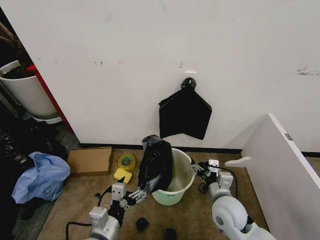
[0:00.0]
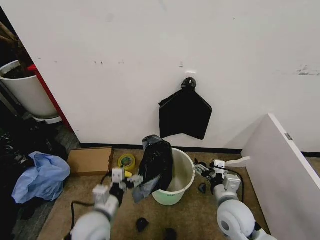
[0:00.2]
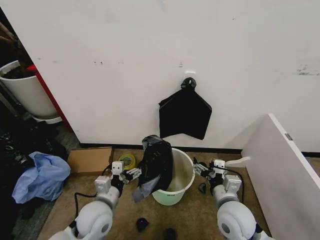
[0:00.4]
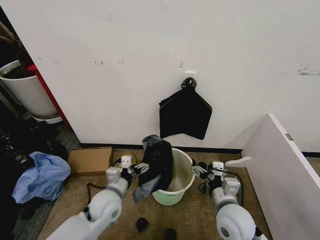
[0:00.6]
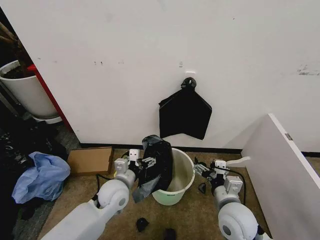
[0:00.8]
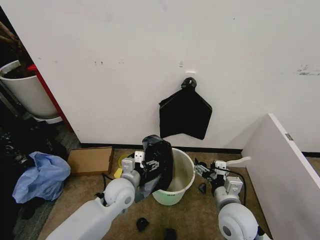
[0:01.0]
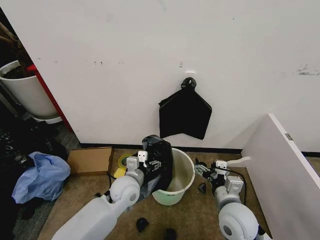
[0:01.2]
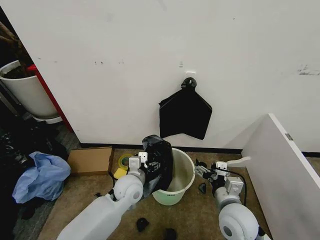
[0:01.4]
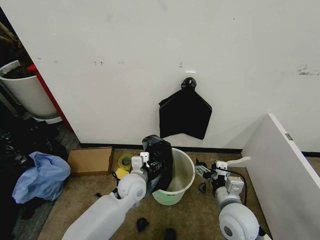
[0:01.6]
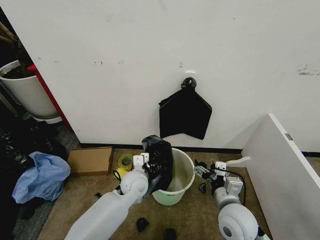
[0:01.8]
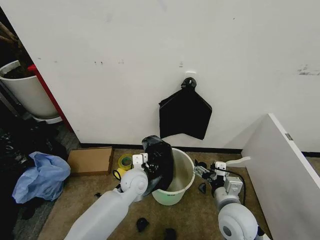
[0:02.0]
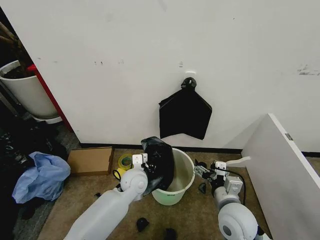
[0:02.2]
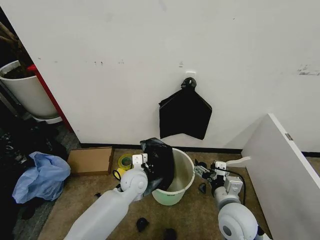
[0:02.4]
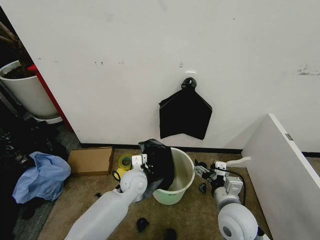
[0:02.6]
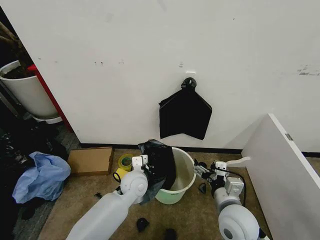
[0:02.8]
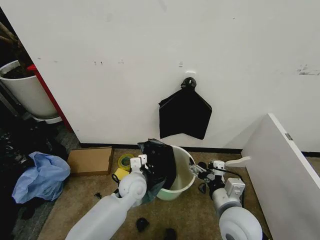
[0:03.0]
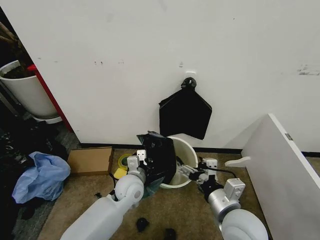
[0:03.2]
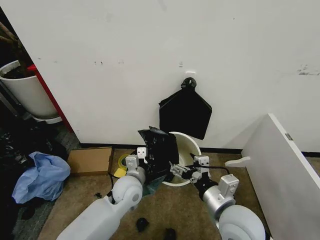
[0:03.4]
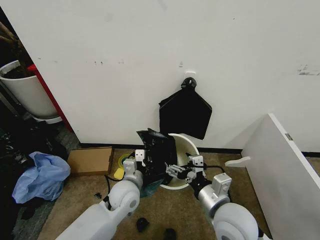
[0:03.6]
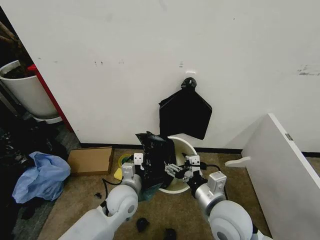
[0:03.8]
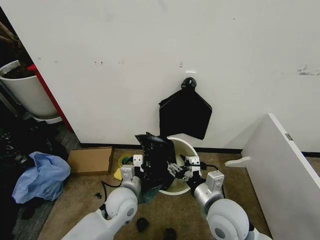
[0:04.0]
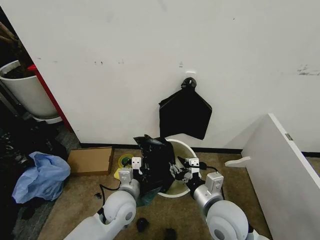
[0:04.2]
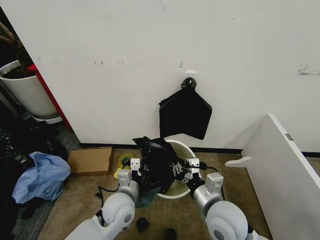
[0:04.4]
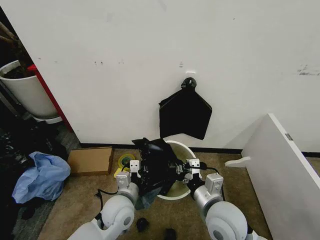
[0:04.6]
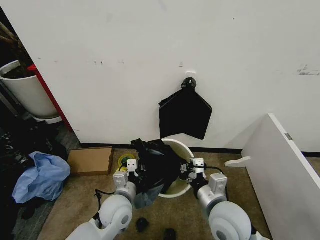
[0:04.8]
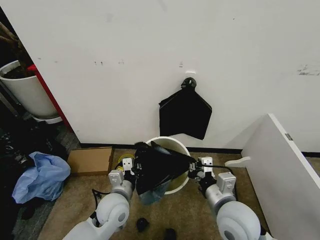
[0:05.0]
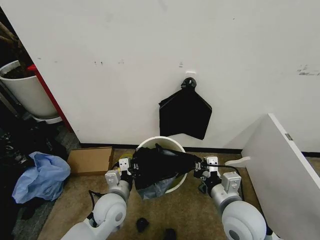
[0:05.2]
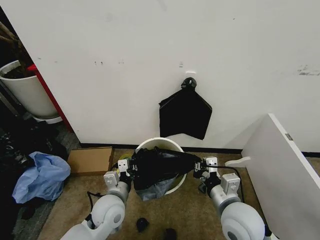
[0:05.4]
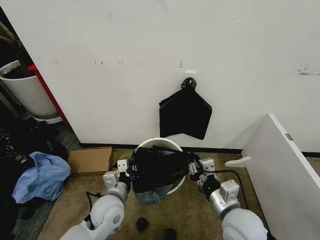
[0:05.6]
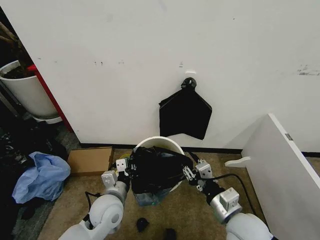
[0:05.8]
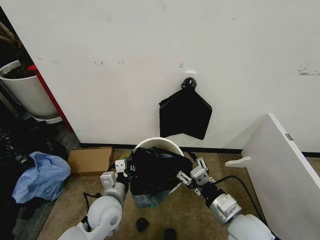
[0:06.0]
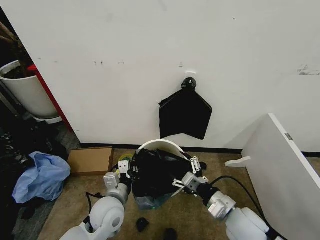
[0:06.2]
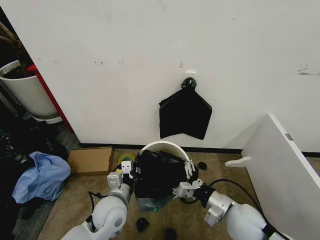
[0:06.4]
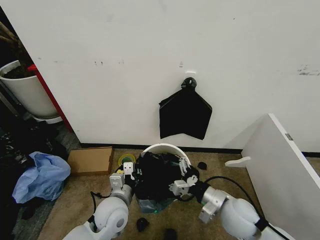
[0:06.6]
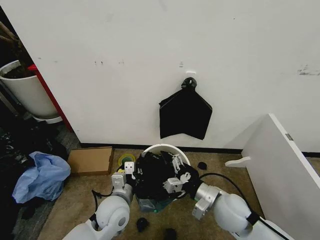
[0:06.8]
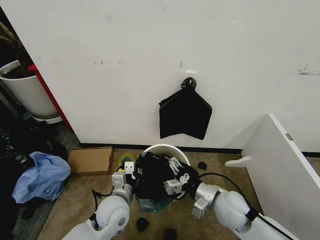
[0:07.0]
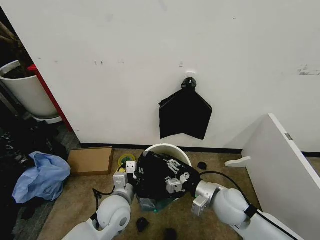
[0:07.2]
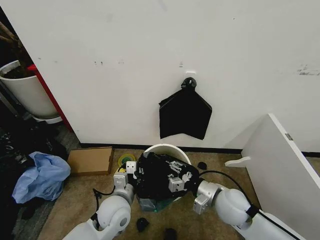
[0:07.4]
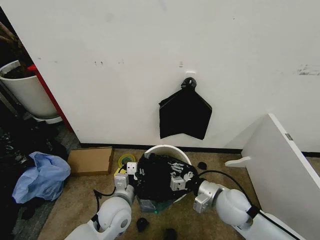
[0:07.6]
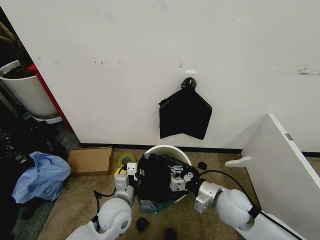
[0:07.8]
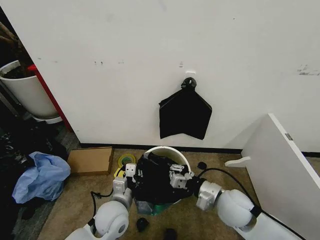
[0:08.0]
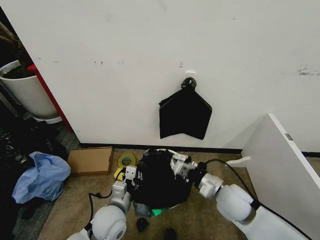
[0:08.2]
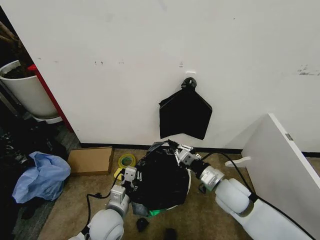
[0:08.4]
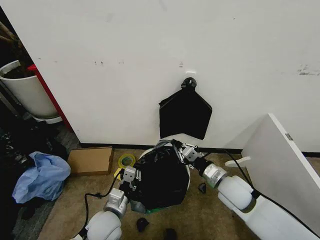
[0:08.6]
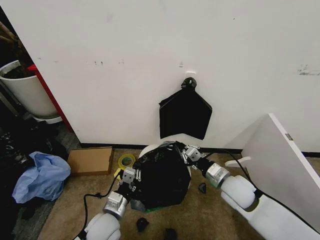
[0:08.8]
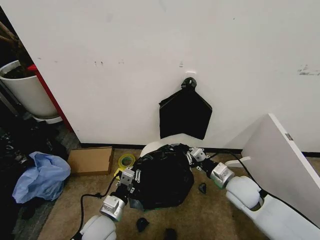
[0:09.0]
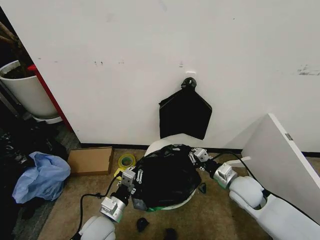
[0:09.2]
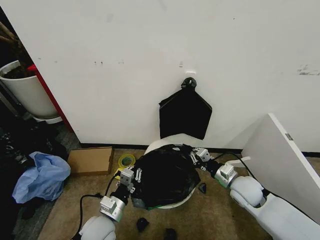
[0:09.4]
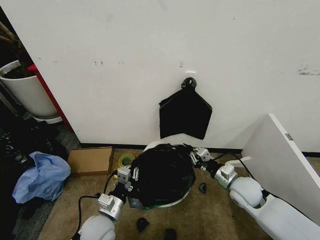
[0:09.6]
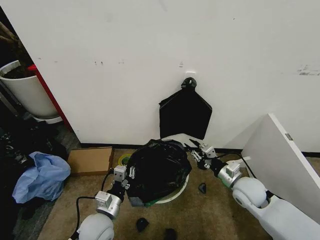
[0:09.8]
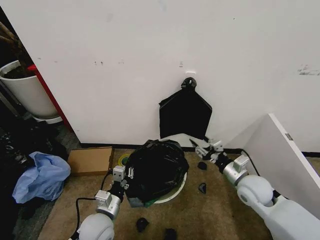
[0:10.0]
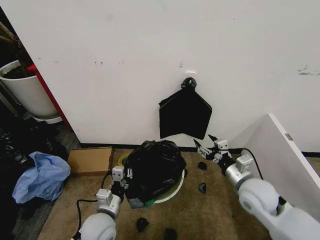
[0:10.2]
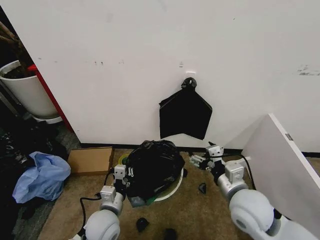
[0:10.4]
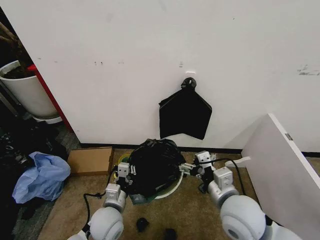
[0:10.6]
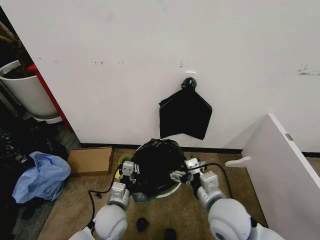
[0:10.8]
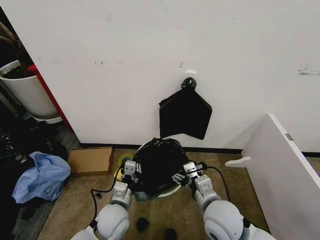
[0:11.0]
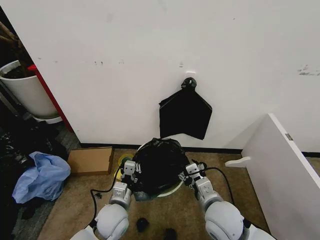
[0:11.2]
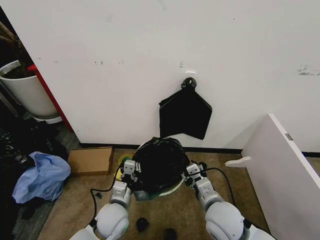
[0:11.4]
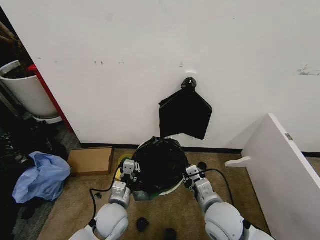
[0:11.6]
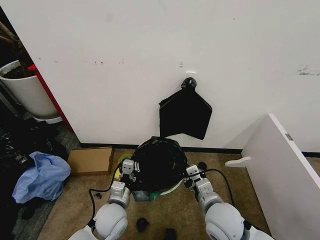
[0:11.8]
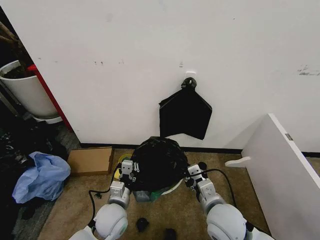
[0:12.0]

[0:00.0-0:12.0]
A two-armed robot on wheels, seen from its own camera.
Task of the whole recording: Place the garbage bag over the trash bin.
0:00.0 to 0:01.6: The left gripper travels forward by approximately 20 cm.
0:01.6 to 0:03.0: The left gripper closes its fingers.
0:03.0 to 0:04.4: The left gripper heads backward, covering roughly 10 cm. Meanwhile the right gripper closes up.
0:04.4 to 0:06.0: The right gripper goes about 5 cm to the right, and opens its fingers.
0:06.0 to 0:07.6: The right gripper heads forward, covering some 10 cm, and closes its fingers.
0:07.6 to 0:09.0: The right gripper moves approximately 5 cm; the left gripper shifts by approximately 5 cm.
0:09.0 to 0:10.4: The right gripper shifts approximately 10 cm backward and upward, and opens up.
0:10.4 to 0:12.0: The right gripper is displaced to the left and downward by about 5 cm, and closes.

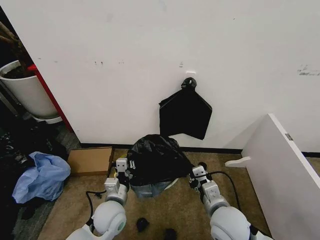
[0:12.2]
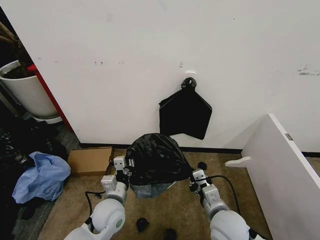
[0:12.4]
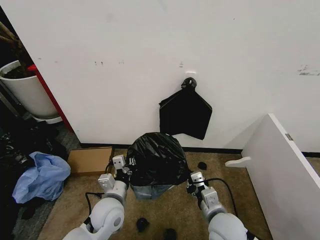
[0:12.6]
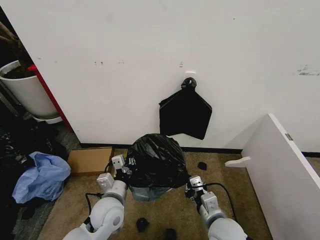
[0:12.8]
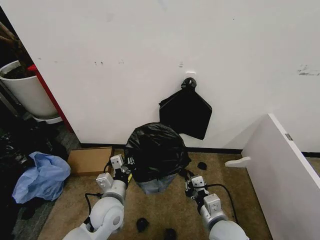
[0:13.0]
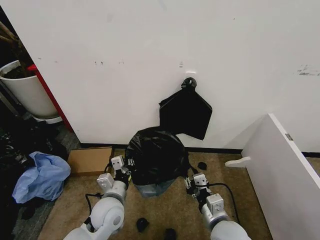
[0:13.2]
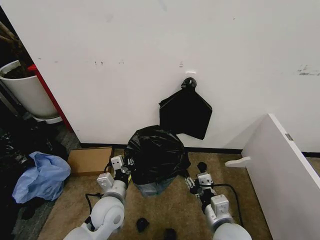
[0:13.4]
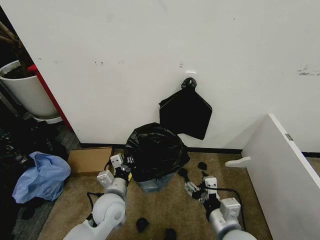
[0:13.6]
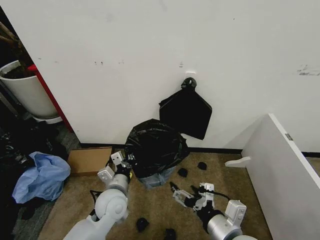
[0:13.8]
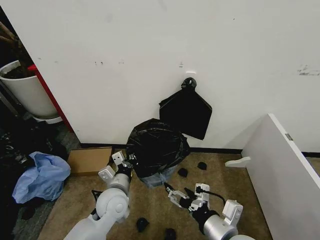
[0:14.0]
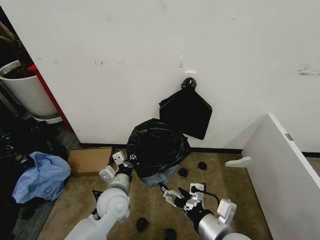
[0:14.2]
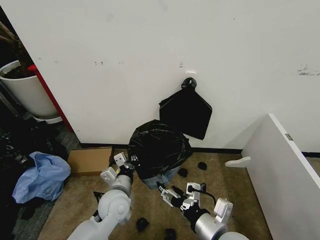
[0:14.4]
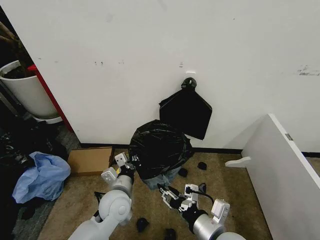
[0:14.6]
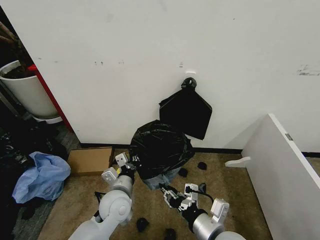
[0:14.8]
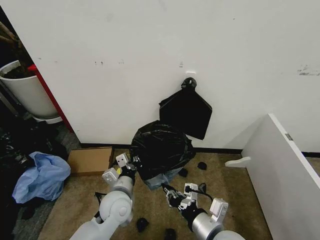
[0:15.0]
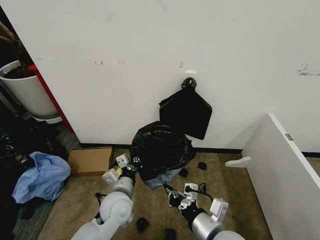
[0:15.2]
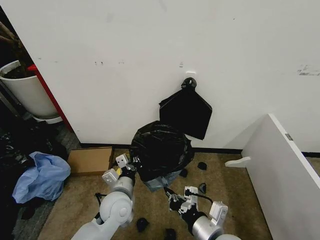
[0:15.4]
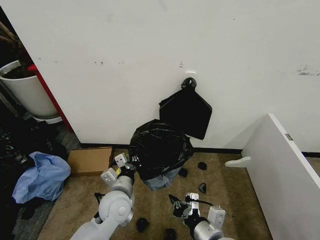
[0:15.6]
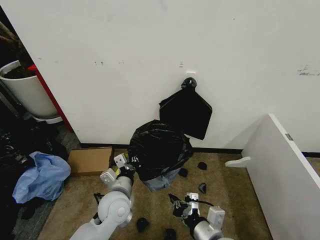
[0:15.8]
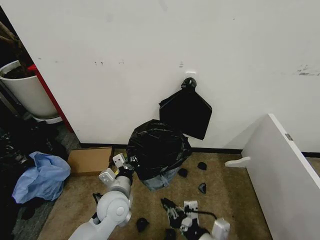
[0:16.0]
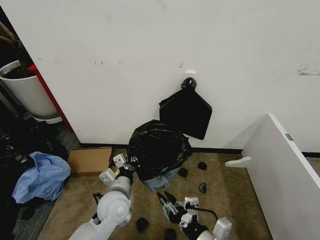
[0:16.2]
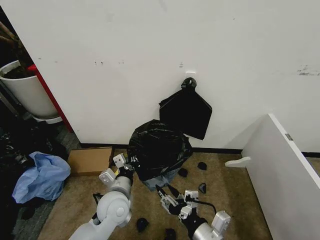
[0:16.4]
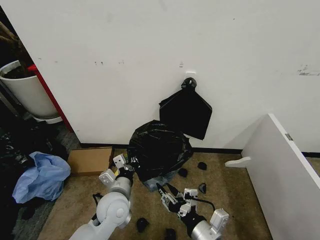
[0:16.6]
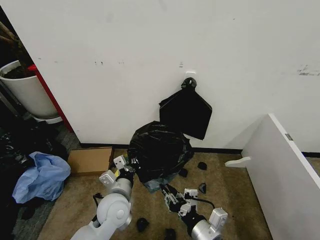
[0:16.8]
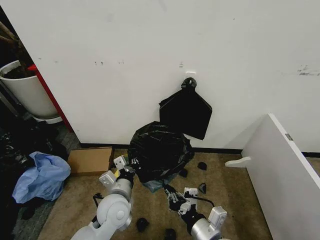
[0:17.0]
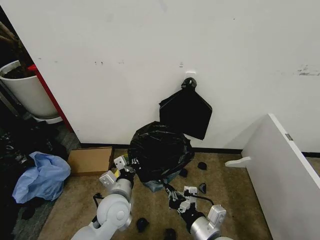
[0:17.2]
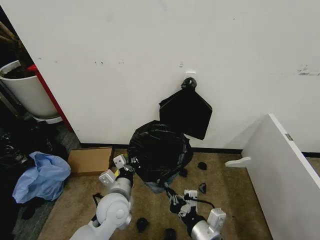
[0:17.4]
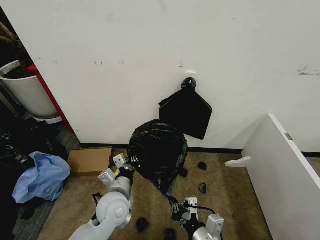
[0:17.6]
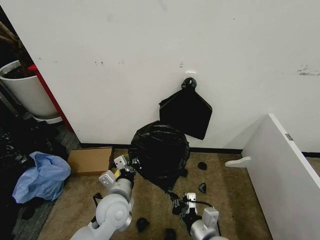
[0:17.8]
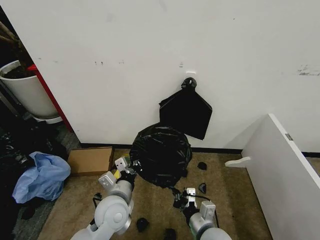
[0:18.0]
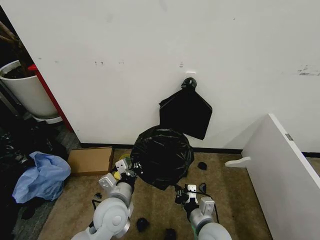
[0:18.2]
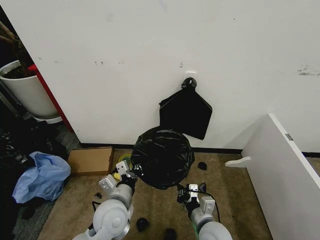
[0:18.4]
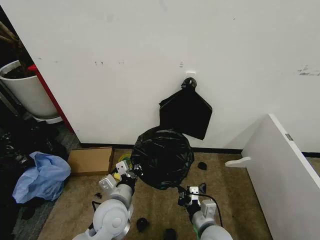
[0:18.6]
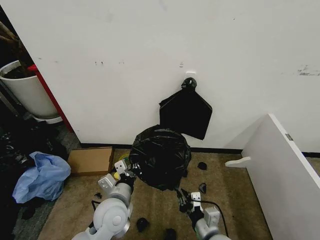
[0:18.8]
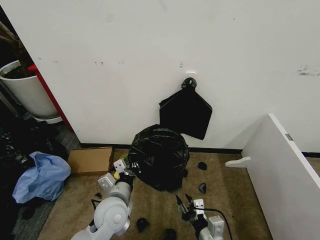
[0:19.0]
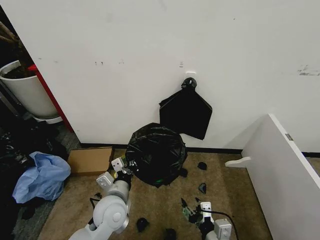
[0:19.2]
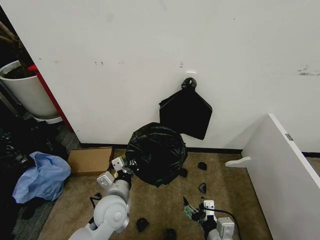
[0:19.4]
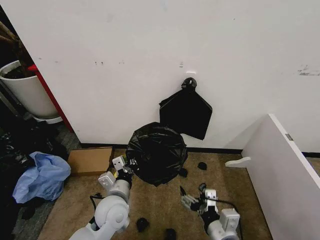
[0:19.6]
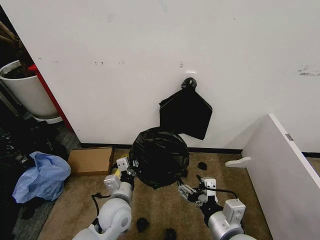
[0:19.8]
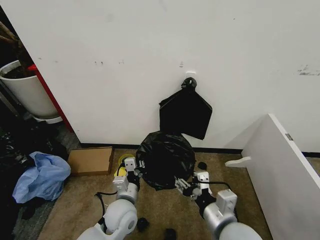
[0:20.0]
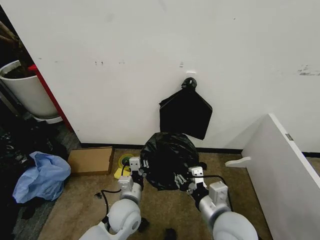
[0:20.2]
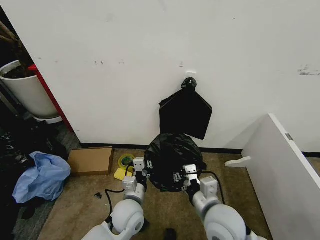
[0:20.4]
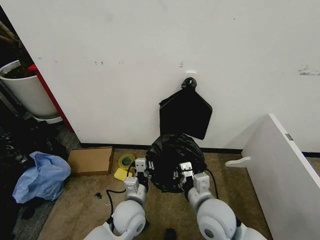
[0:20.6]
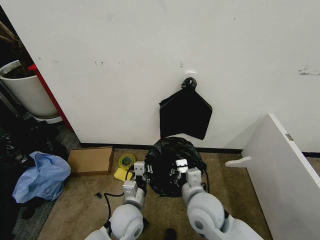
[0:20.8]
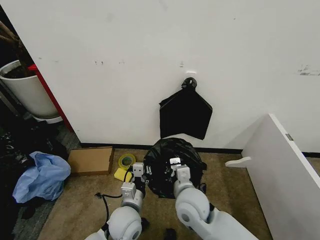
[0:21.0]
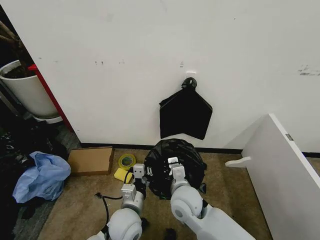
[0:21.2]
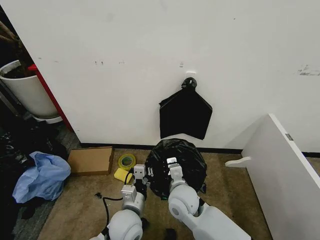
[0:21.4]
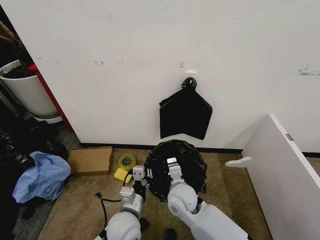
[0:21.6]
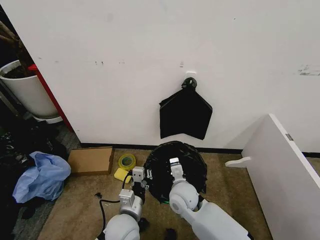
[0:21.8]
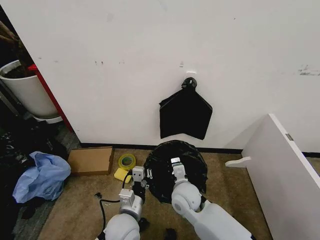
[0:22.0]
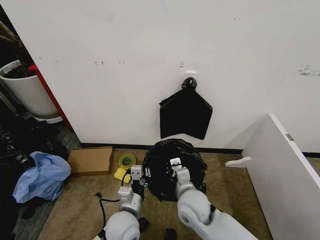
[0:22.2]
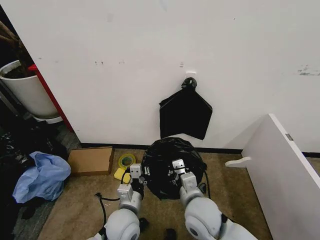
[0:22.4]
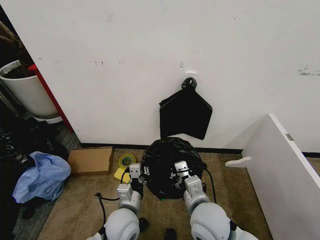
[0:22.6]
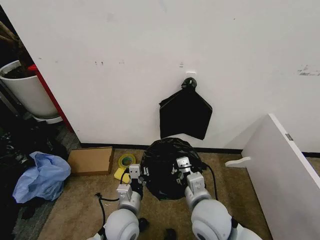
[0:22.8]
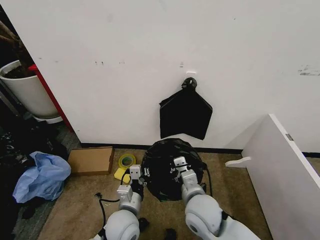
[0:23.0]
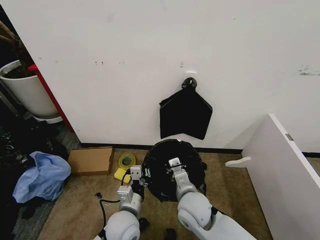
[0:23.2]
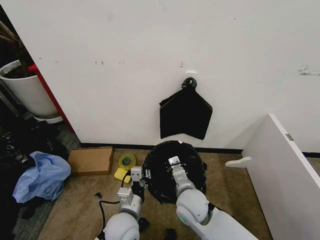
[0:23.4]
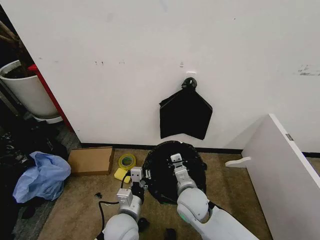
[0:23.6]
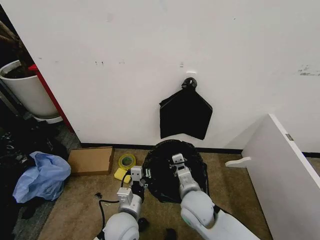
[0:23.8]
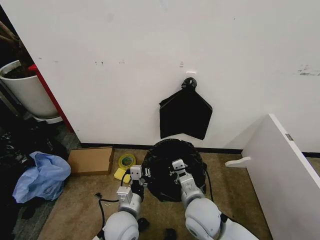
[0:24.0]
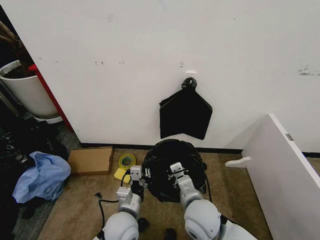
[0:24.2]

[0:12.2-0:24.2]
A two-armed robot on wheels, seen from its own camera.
Task of the whole recording: Place the garbage bag over the trash bin.
0:12.2 to 0:13.8: The right gripper goes about 10 cm backward, and opens its fingers.
0:13.8 to 0:15.2: The right gripper closes up.
0:15.2 to 0:16.6: The right gripper opens up.
0:16.6 to 0:18.2: The right gripper goes some 10 cm downward and forward, and closes.
0:18.2 to 0:19.8: The right gripper travels upward and backward by about 15 cm, and opens.
0:19.8 to 0:21.2: The right gripper is displaced forward, to the left and downward by some 20 cm, and closes up.
0:21.2 to 0:22.6: The right gripper is displaced backward by approximately 5 cm.
